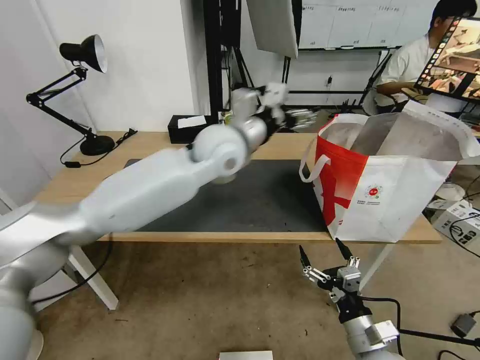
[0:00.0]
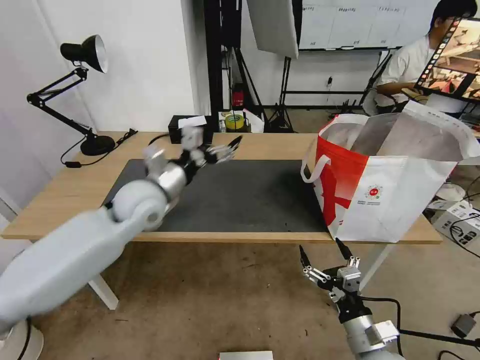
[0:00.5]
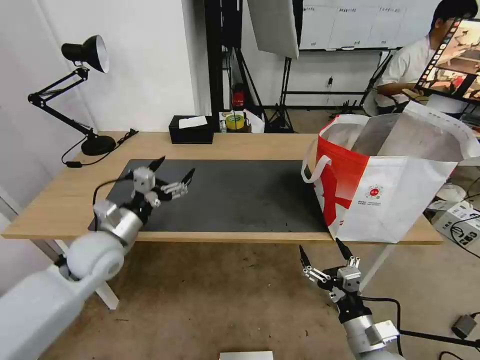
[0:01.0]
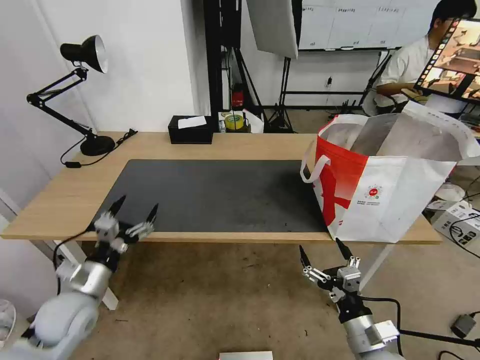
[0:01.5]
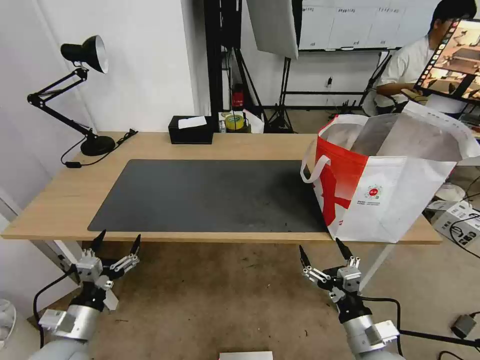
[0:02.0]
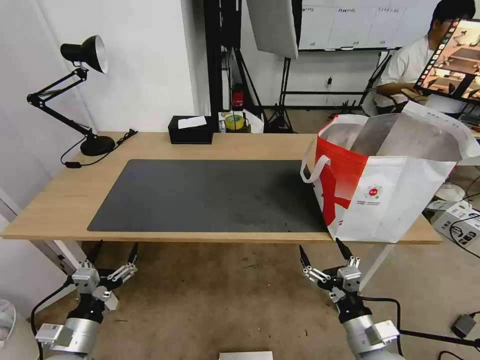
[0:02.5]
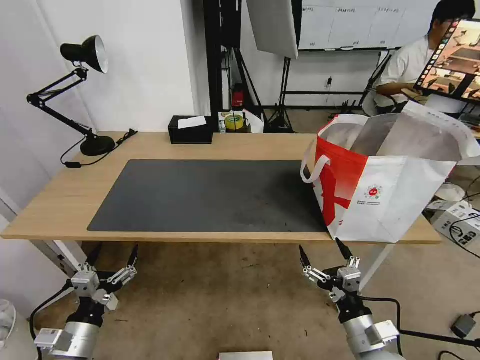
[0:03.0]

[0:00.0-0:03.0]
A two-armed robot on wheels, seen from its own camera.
Task of the whole recording: Pick up the trash from the table and place it into the takeout bag.
0:00.0 to 0:01.5: The left gripper is displaced to the left, downward and backward by roughly 40 cm.
0:01.5 to 0:03.0: The left gripper is displaced backward and downward by approximately 15 cm.

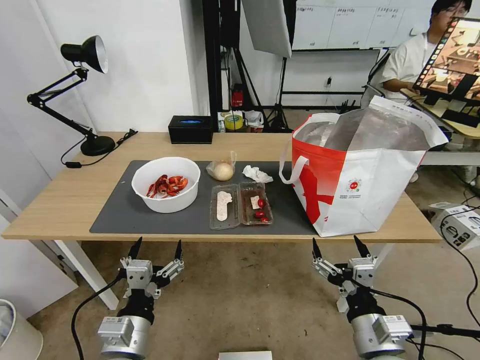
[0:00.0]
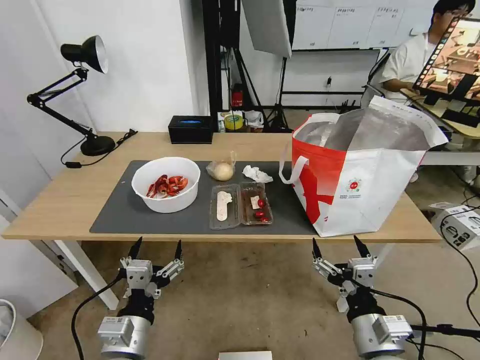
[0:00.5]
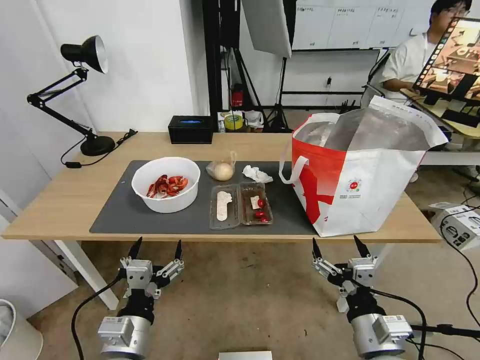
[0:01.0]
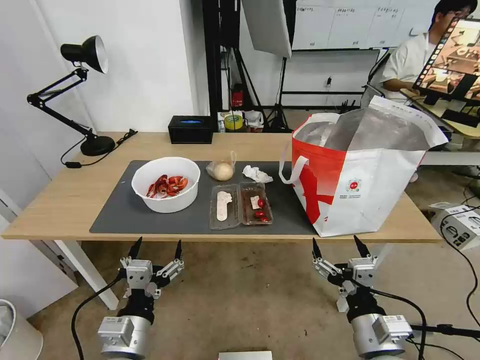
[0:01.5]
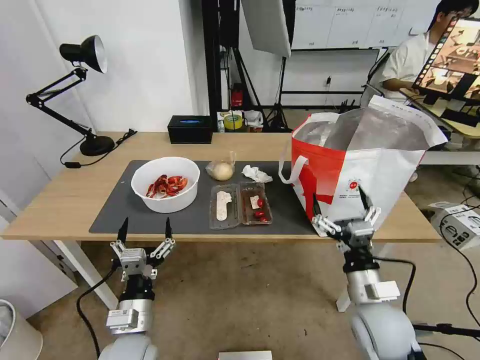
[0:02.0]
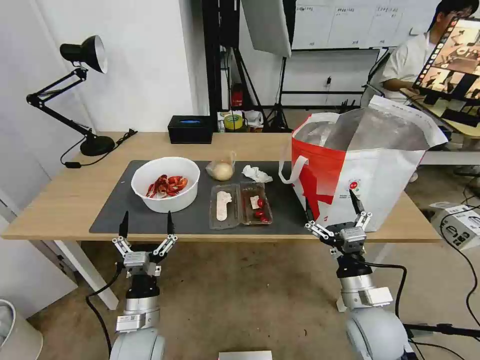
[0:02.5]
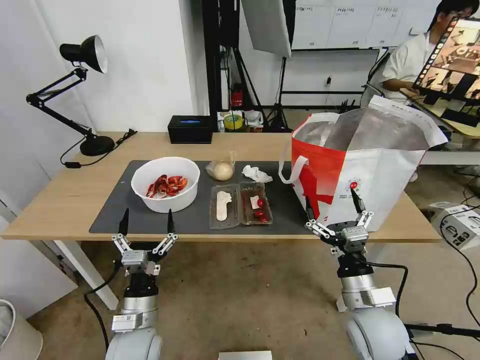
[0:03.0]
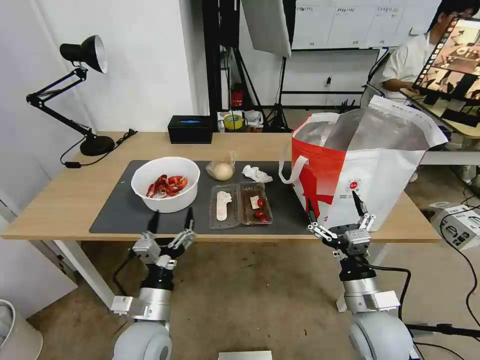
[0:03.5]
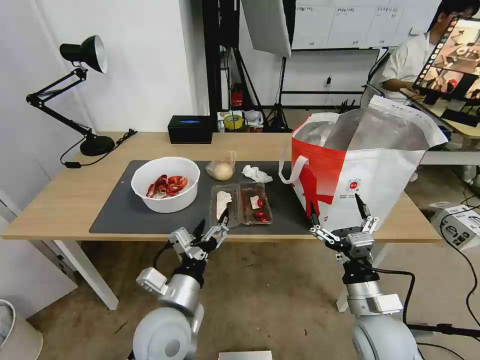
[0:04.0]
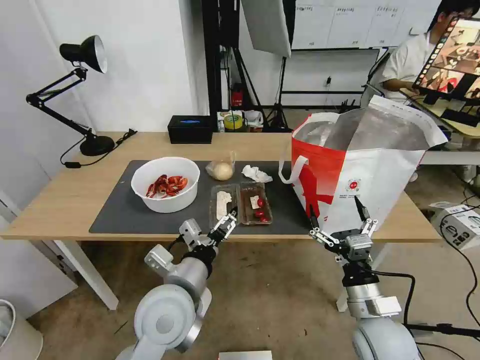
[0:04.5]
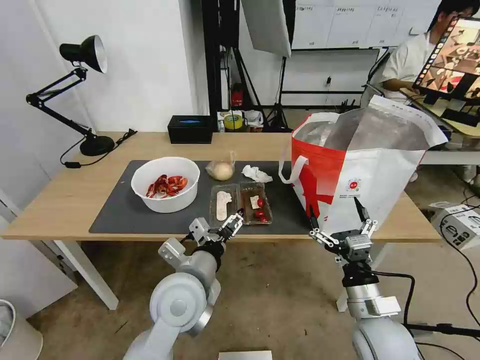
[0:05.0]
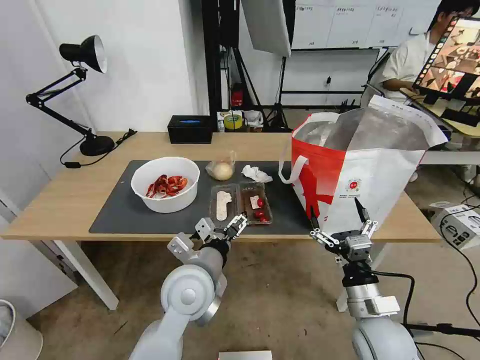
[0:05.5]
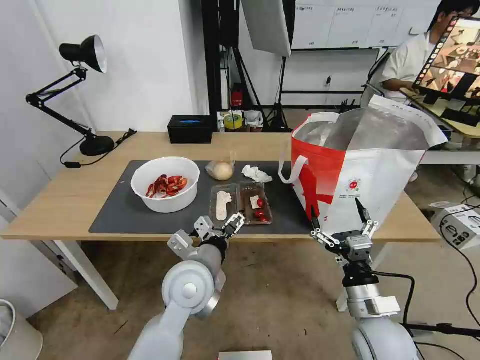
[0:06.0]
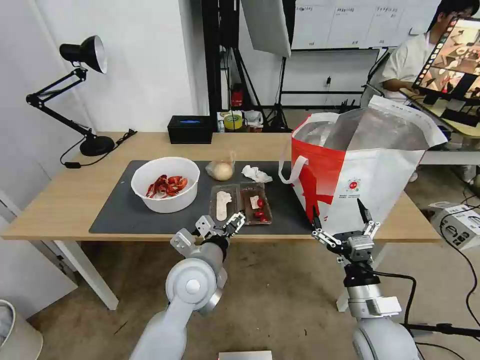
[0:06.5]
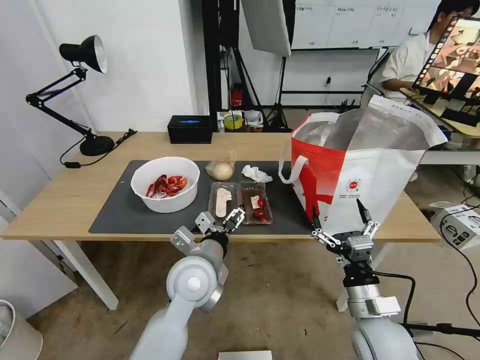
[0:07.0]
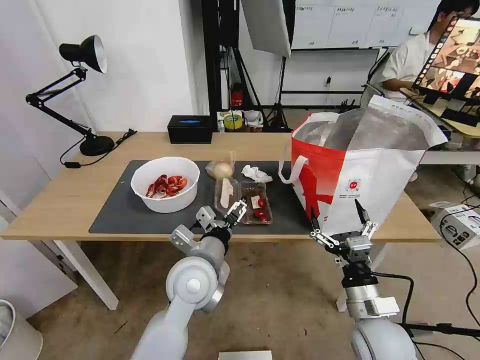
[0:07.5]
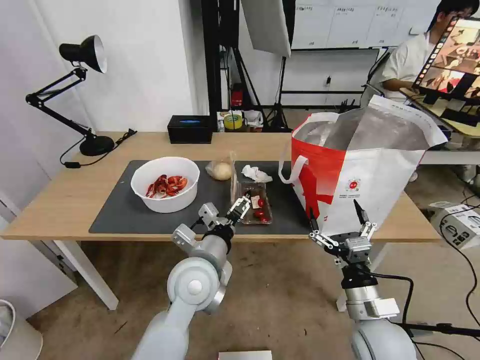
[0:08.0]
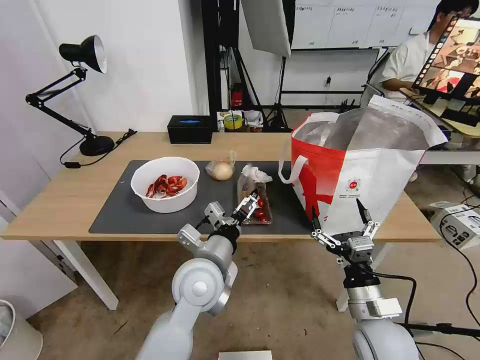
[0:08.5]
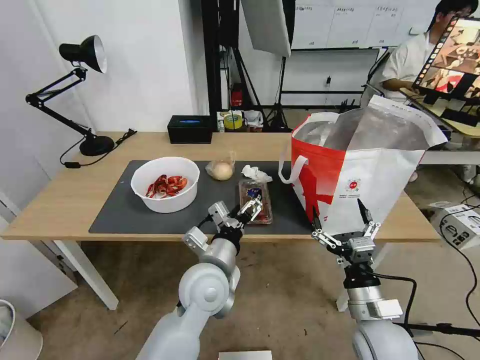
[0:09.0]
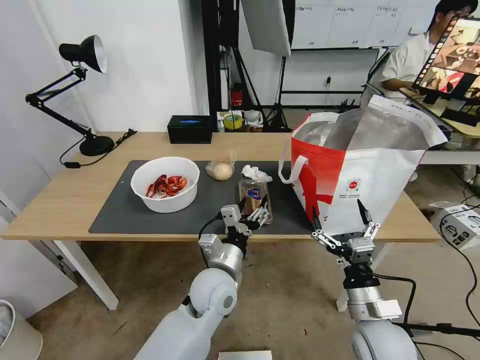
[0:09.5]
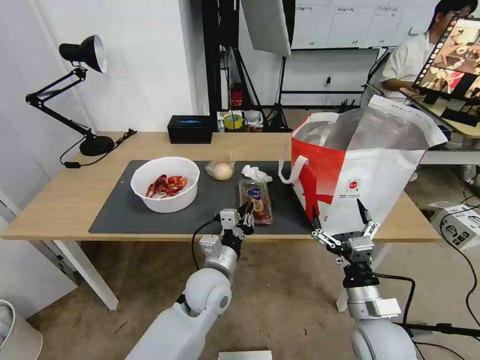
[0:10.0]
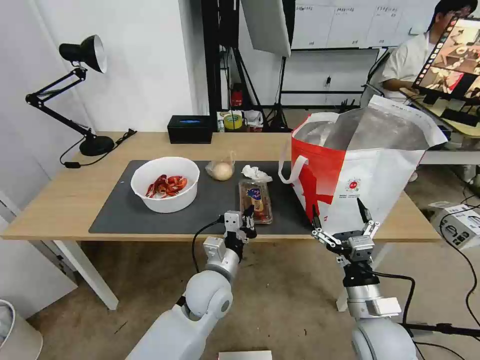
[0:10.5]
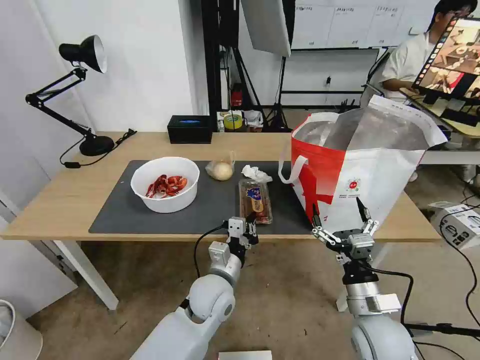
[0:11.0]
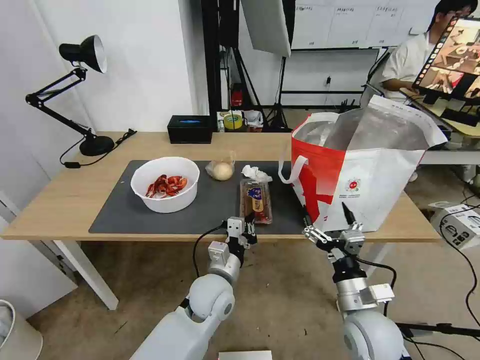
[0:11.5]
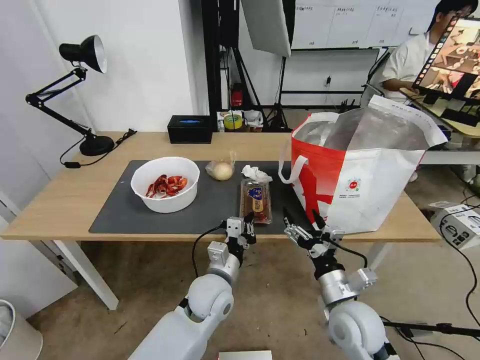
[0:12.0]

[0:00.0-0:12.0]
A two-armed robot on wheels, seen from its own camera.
Task of the whole recording: Pick up the trash from the table and place it into the takeout bag.
0:02.0 to 0:04.0: The left gripper shifts about 10 cm to the right and upward.
0:04.0 to 0:06.0: The left gripper heads forward, covering some 5 cm.
0:06.0 to 0:08.0: The grippers move only a little.
0:08.0 to 0:10.0: The left gripper is displaced downward by approximately 10 cm, and closes up.

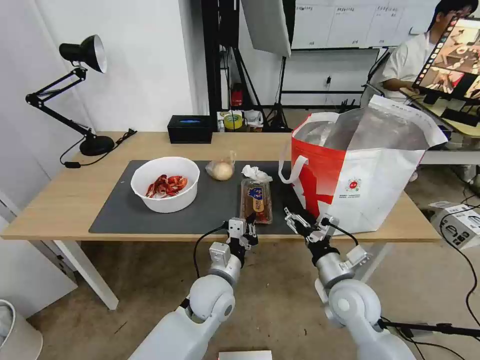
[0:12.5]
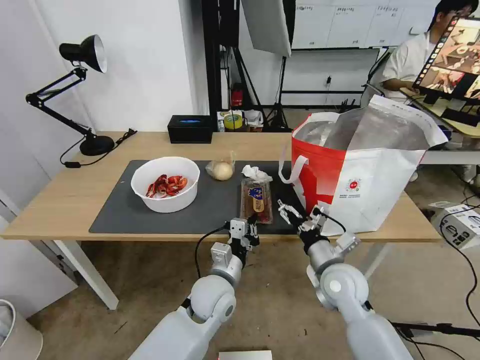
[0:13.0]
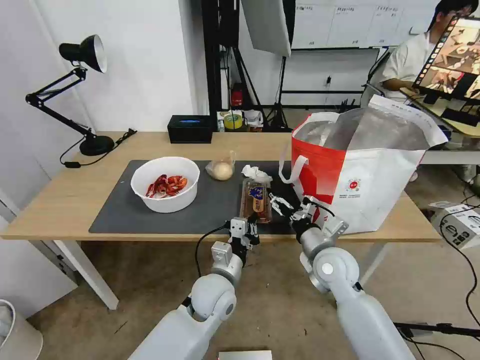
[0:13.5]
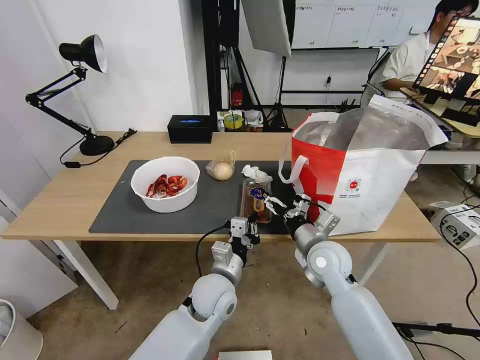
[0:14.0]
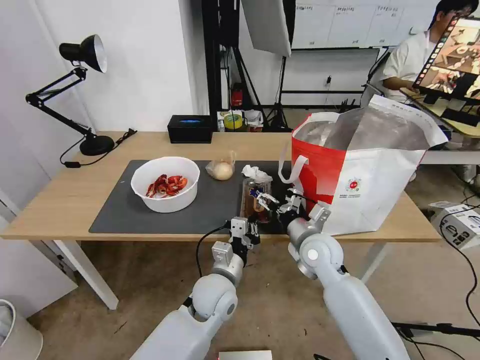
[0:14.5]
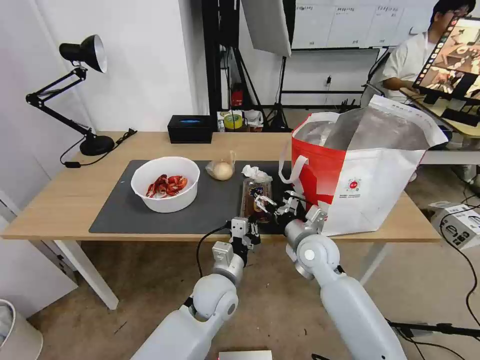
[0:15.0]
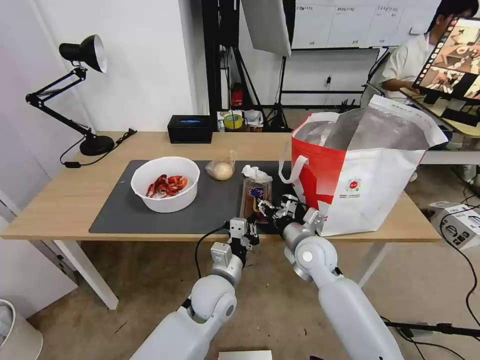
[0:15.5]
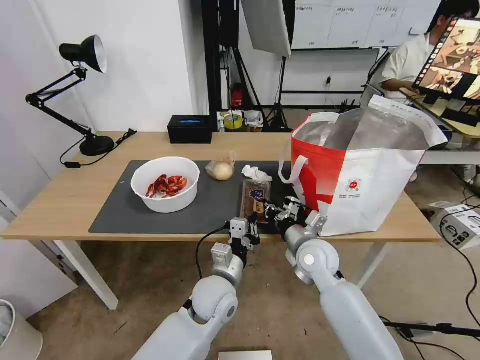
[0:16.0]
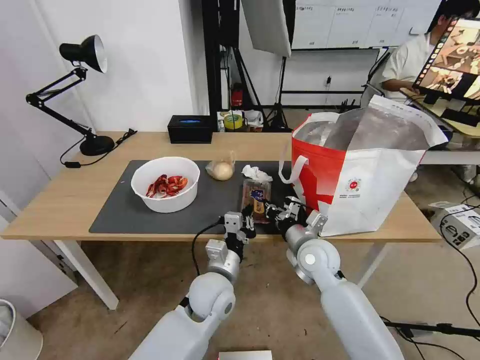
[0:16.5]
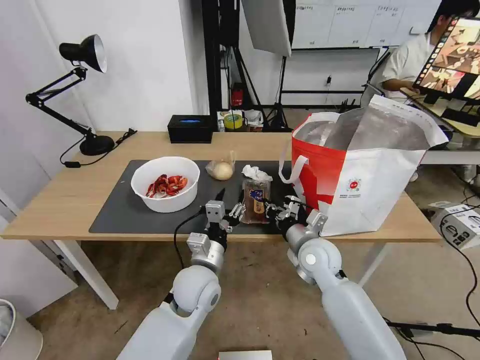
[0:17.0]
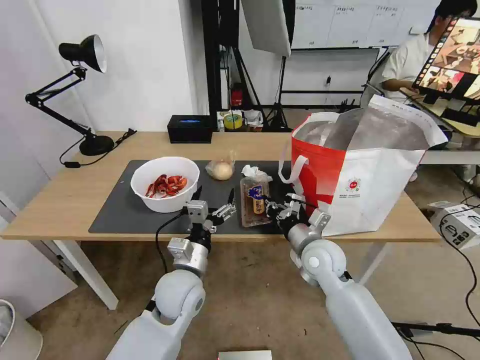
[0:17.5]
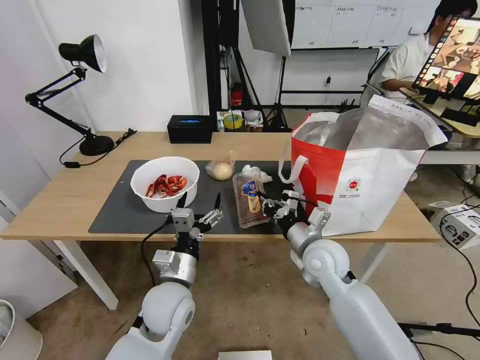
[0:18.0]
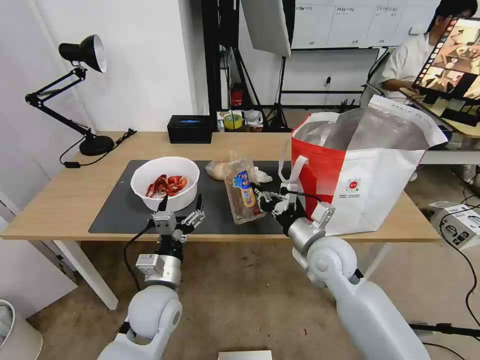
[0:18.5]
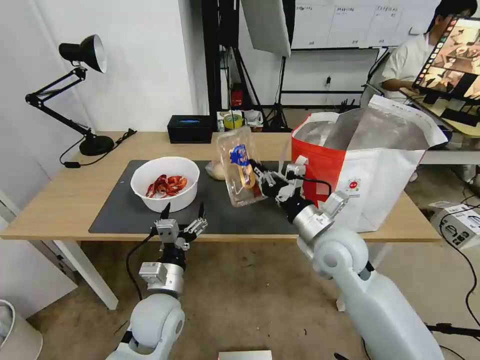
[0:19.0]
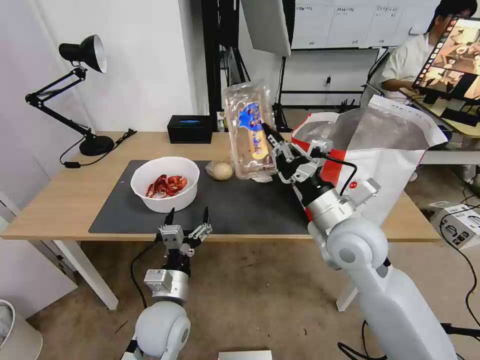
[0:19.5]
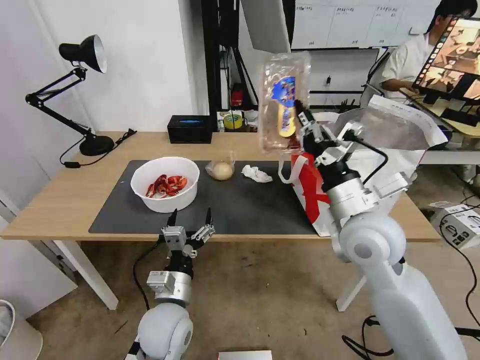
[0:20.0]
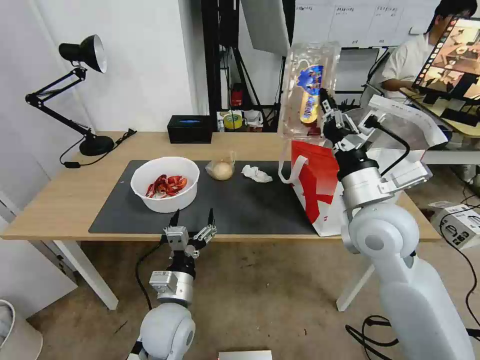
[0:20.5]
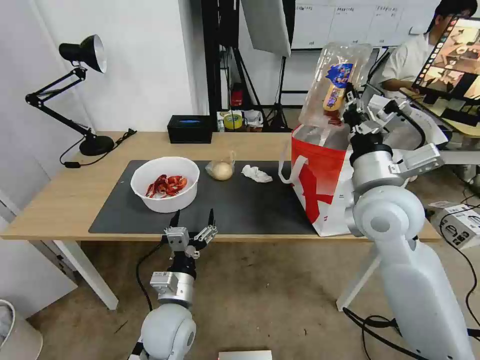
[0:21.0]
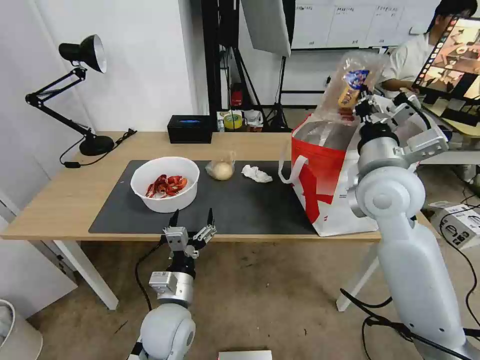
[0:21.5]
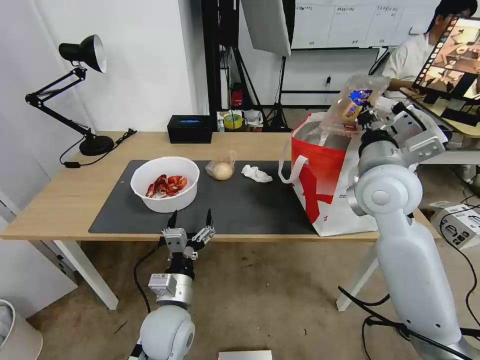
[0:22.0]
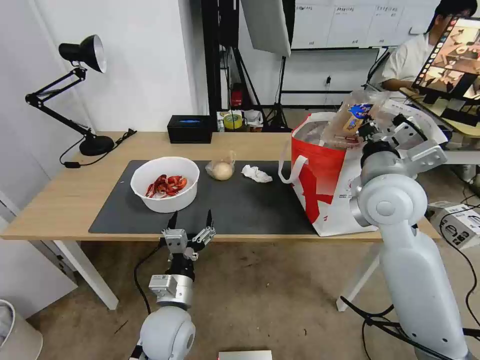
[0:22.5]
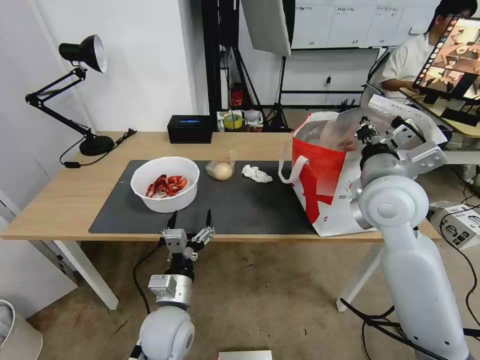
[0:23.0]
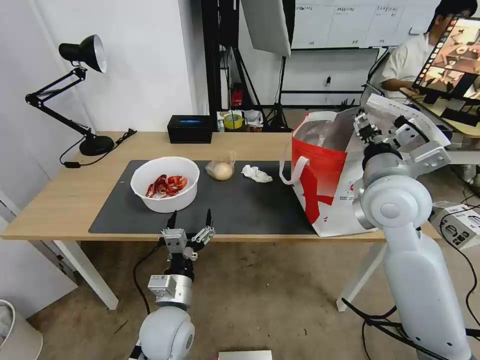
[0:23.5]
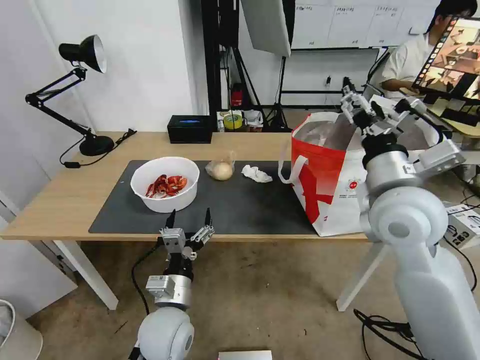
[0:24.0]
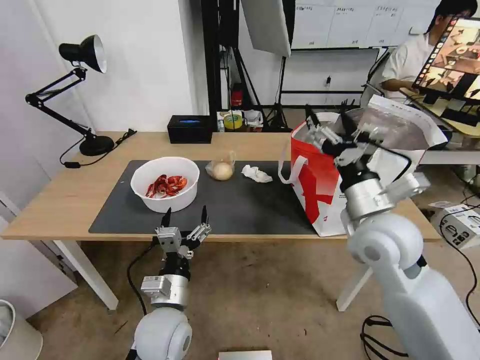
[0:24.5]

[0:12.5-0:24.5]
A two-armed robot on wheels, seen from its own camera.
Task of the whole recording: Pick up the trash from the table and place it into the takeout bag.
0:12.5 to 0:14.5: The right gripper travels forward by approximately 10 cm.
0:14.5 to 0:16.5: The right gripper closes up.
0:16.5 to 0:18.5: The right gripper moves upward, about 5 cm, while the left gripper shifts about 10 cm to the left, and opens.
0:18.5 to 0:20.5: The right gripper moves upward, approximately 15 cm.
0:20.5 to 0:22.5: The right gripper moves some 5 cm.
0:22.5 to 0:24.5: The right gripper shifts by some 5 cm, and opens.
